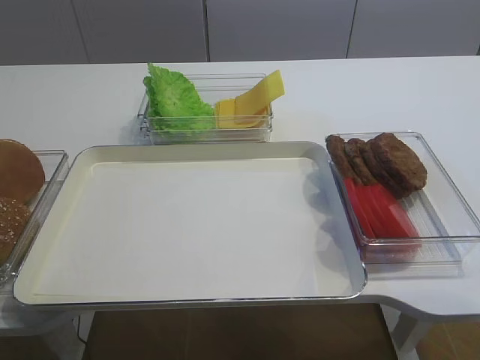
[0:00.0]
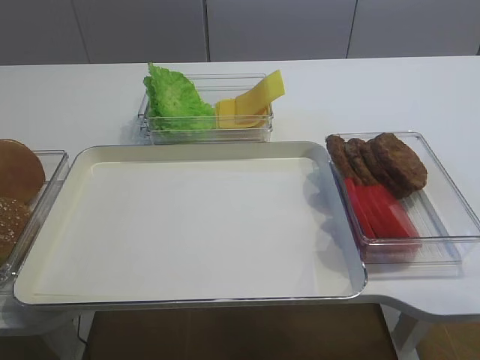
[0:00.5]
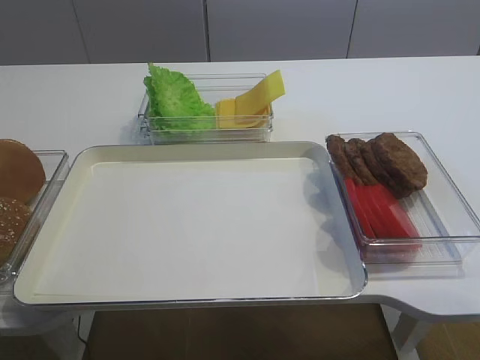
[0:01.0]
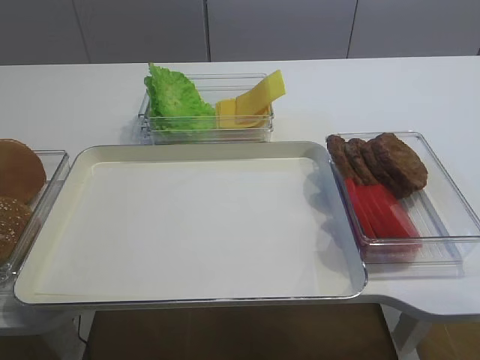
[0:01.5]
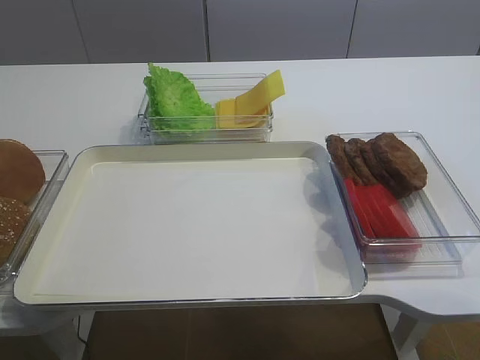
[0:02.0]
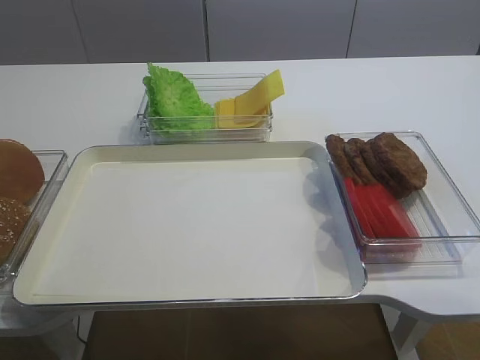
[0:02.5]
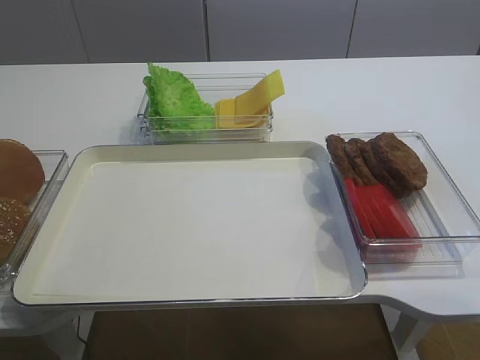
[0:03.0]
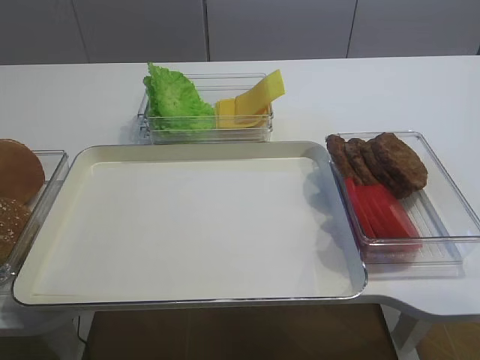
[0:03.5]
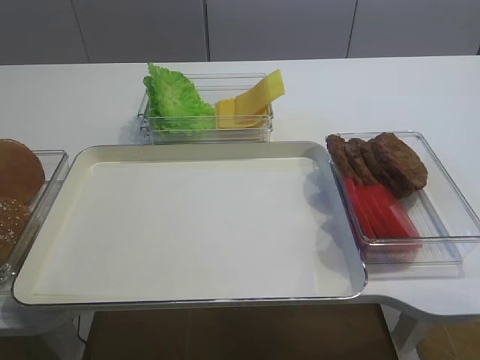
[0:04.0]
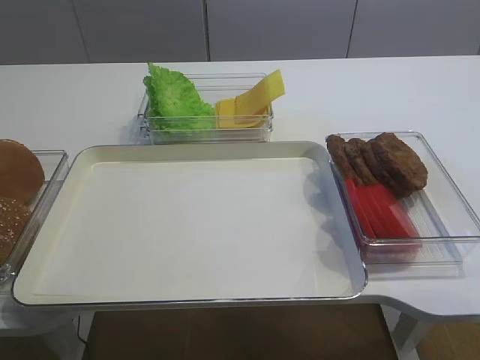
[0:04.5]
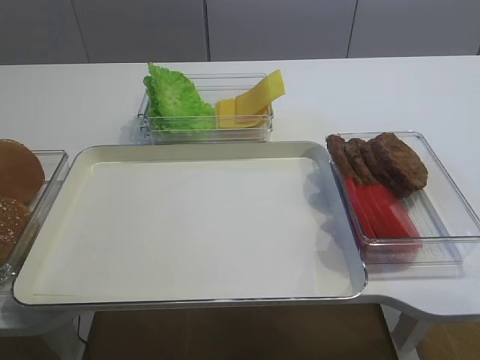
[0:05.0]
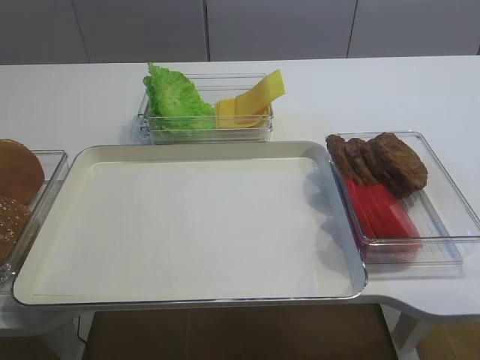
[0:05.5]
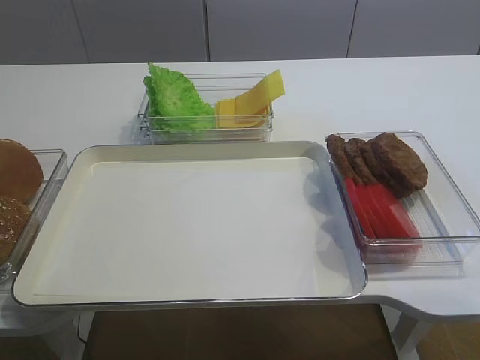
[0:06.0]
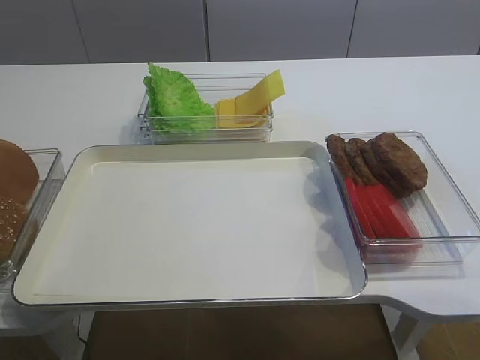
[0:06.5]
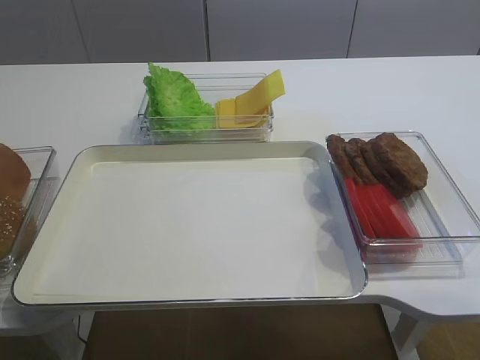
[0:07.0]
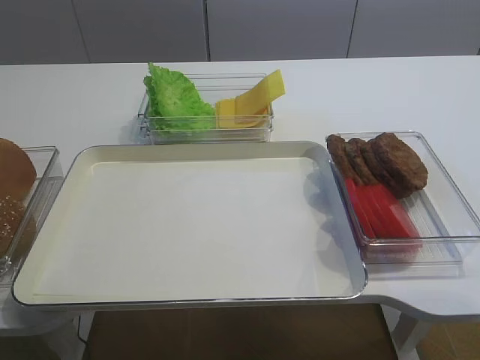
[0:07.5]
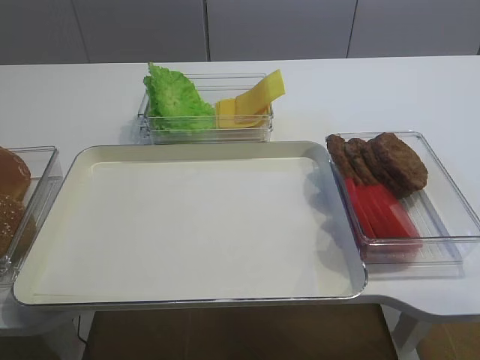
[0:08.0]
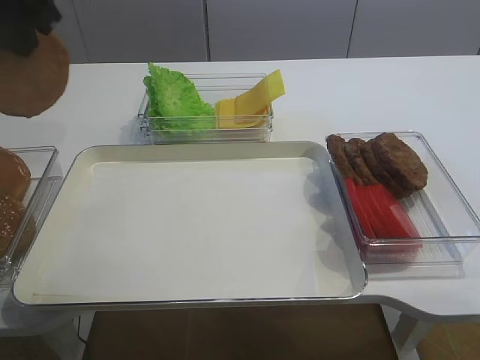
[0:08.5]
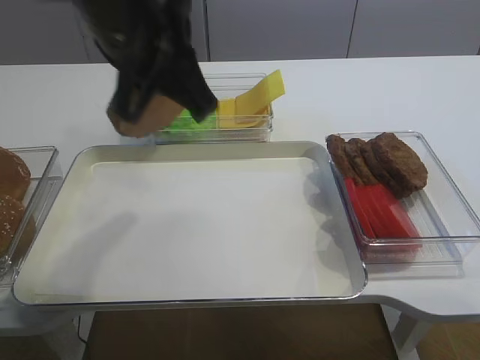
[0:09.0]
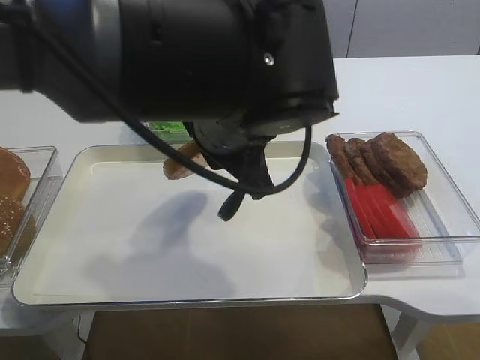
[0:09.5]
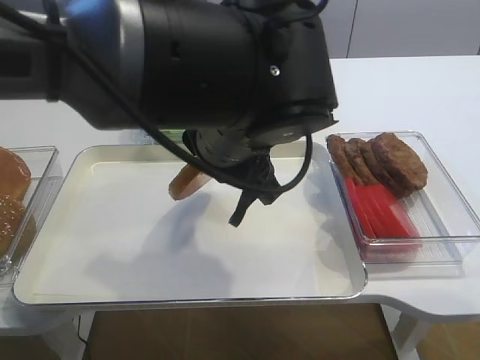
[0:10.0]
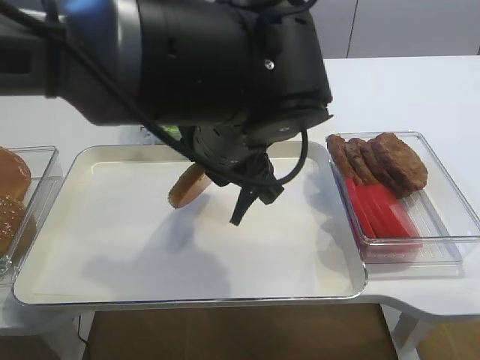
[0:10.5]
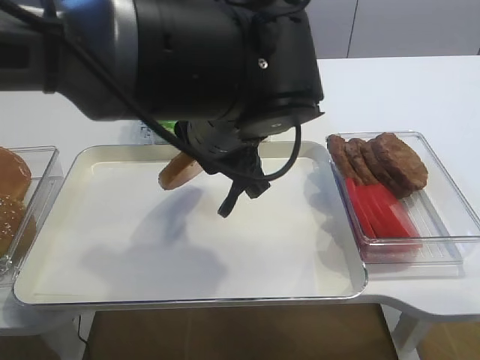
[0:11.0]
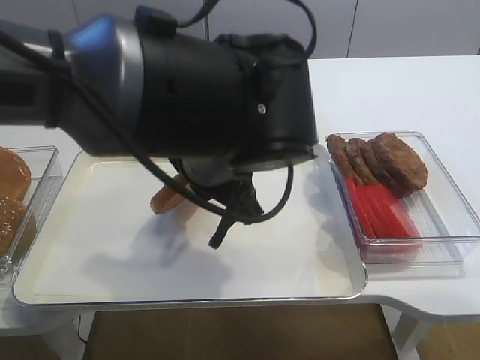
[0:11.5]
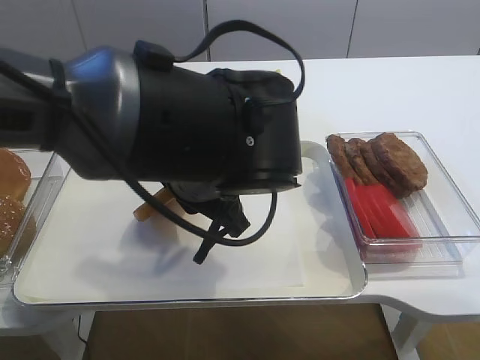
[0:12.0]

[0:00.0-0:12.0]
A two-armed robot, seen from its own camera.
0:06.0 to 0:08.0: The left gripper shifts some 15 cm upward and to the right, and closes.
0:08.0 to 0:10.0: The left gripper heads to the right, covering some 30 cm.

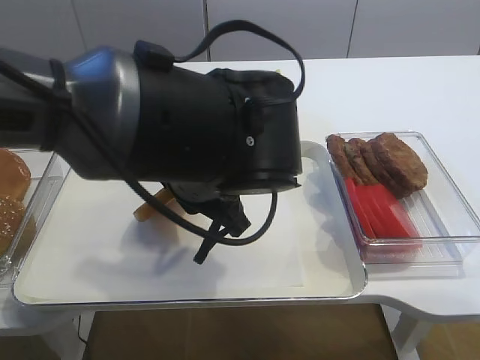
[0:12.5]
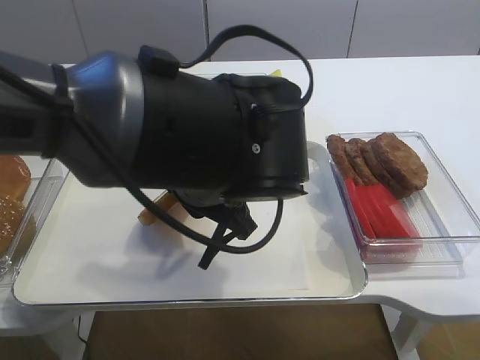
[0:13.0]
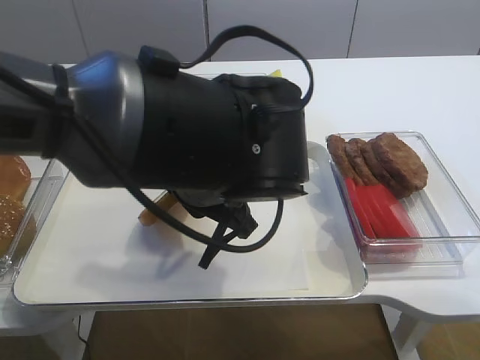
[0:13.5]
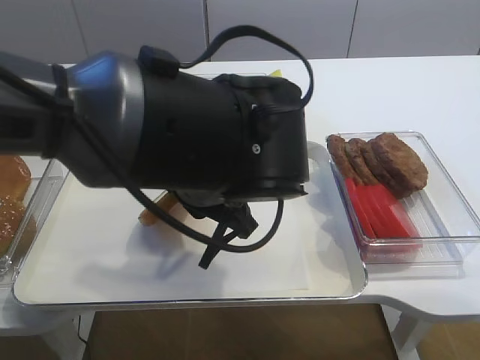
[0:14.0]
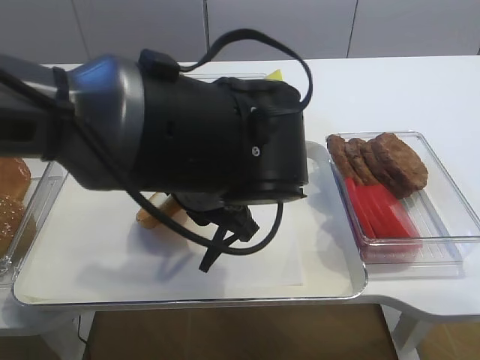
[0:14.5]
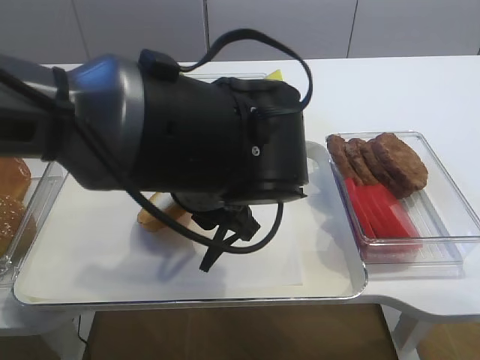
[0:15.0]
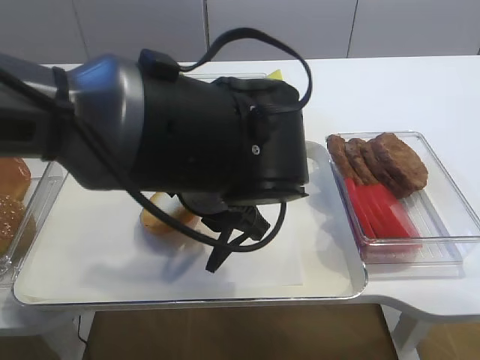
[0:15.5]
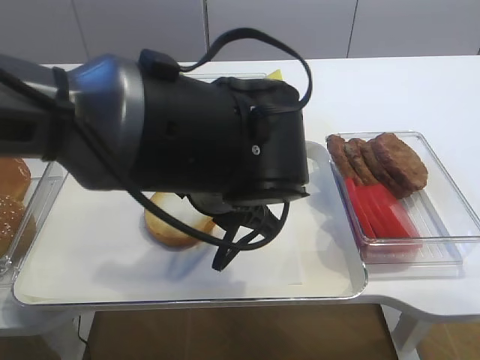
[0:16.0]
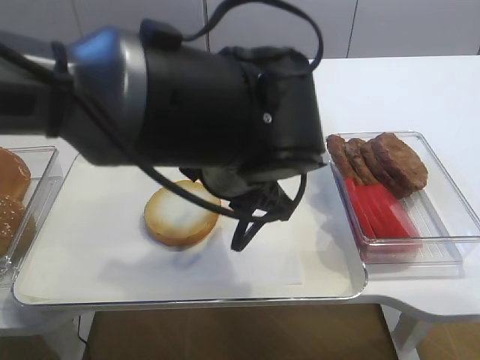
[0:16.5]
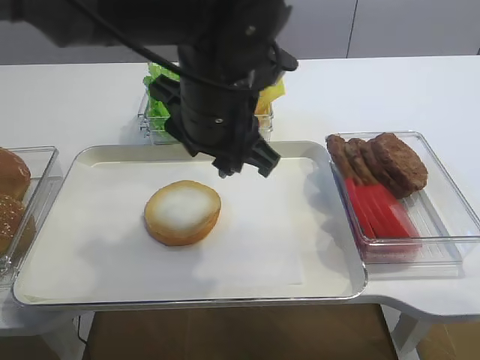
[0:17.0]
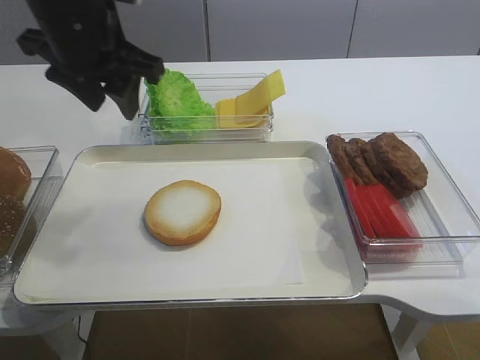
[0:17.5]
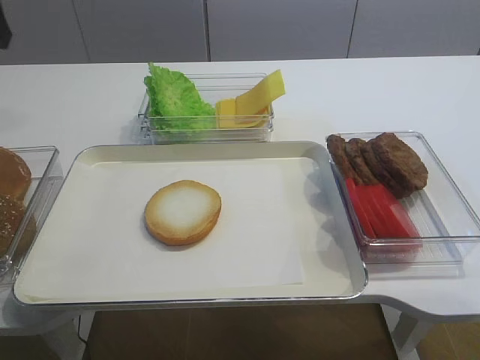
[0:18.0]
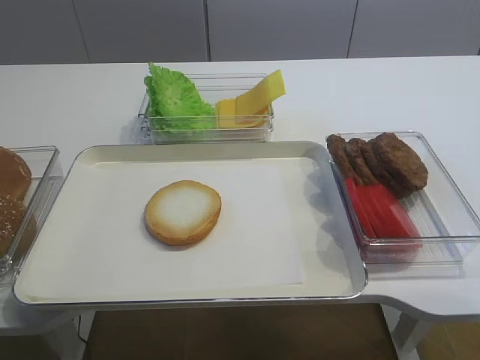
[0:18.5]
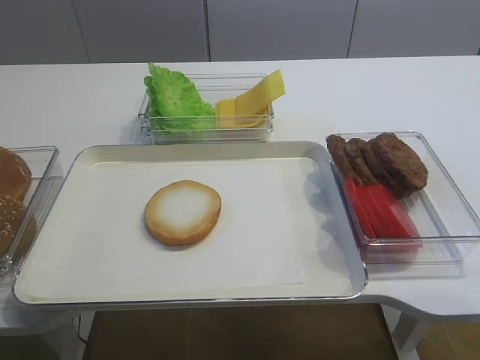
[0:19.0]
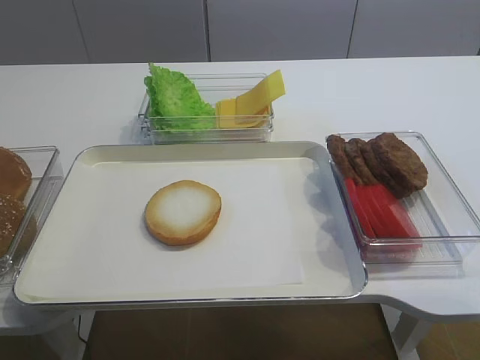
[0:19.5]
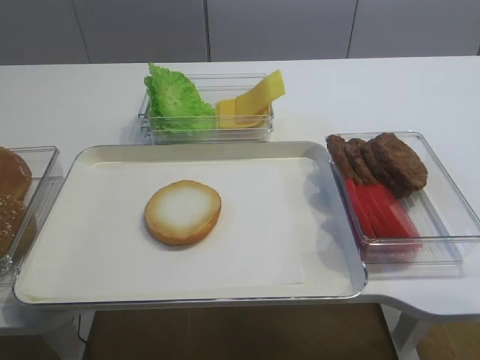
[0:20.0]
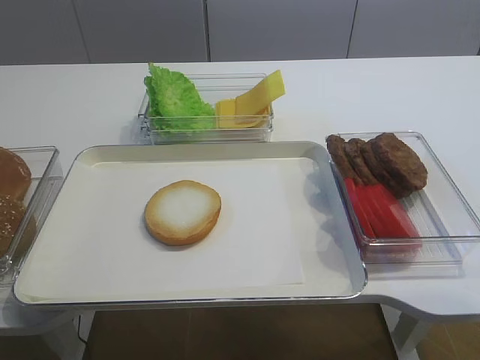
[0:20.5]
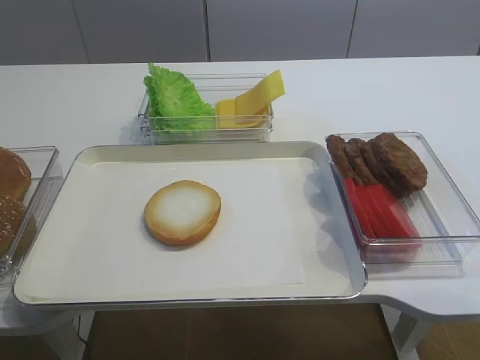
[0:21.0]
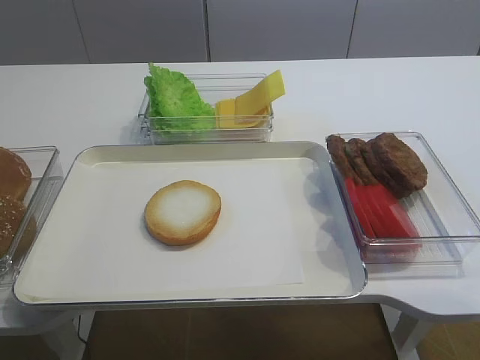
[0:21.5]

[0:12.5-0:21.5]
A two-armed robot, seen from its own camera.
Step, 0:12.5 to 0:16.0: Place the bread slice on the tray with the left gripper.
0:12.5 to 0:14.5: Both grippers stay put.
0:14.5 to 0:17.0: The left gripper moves upward, approximately 5 cm.
0:17.0 to 0:19.5: The left gripper goes some 35 cm to the left and backward.

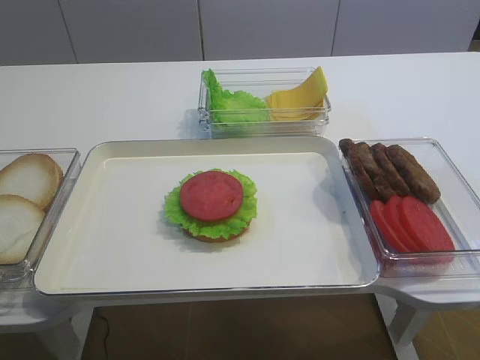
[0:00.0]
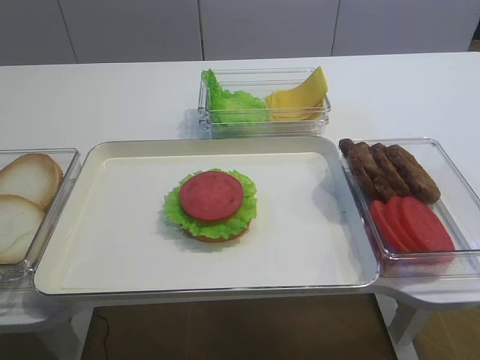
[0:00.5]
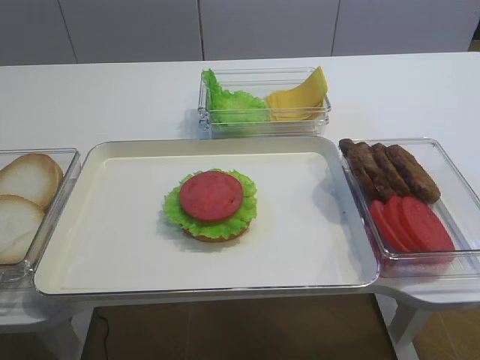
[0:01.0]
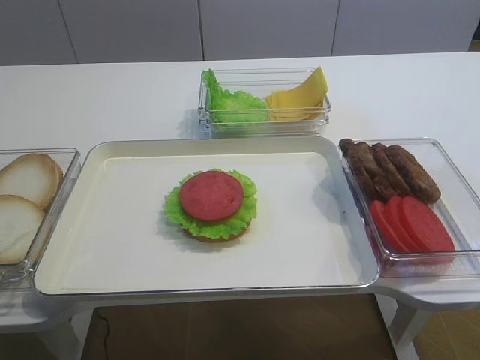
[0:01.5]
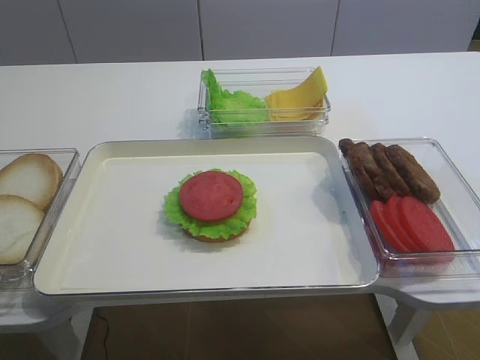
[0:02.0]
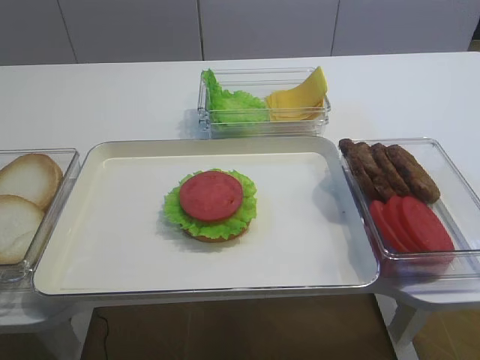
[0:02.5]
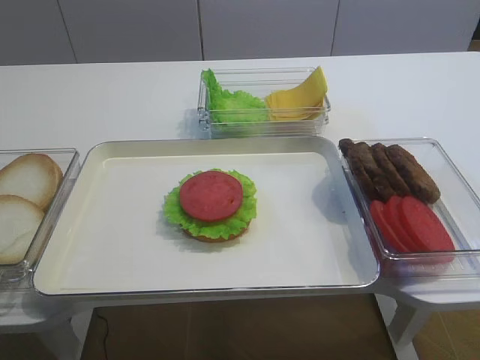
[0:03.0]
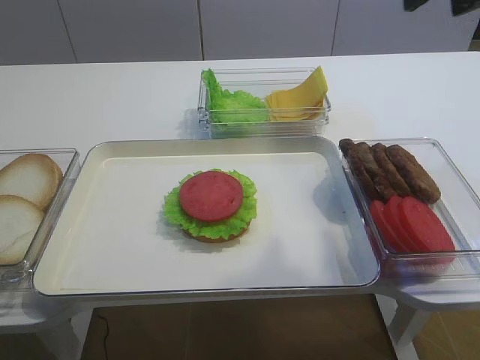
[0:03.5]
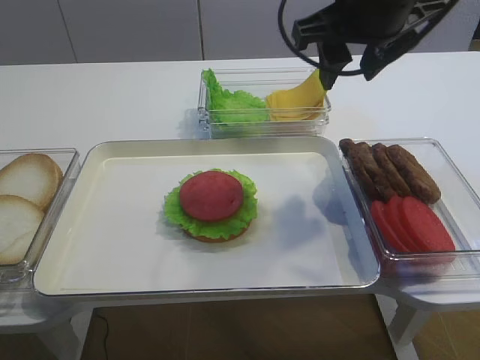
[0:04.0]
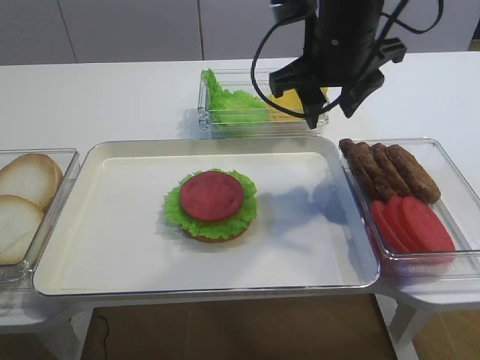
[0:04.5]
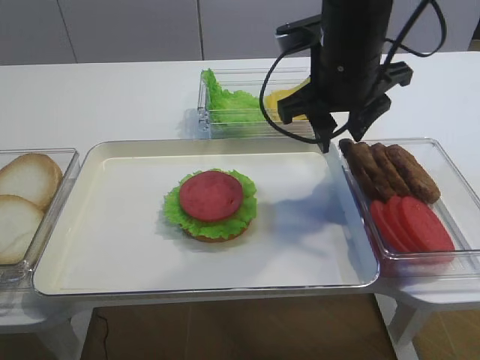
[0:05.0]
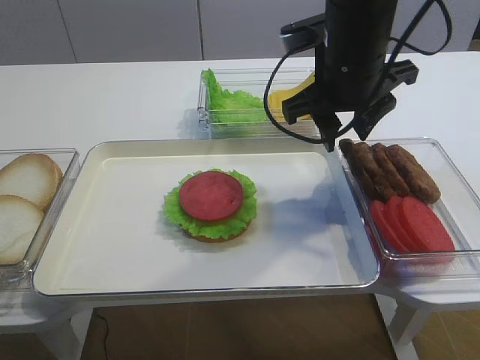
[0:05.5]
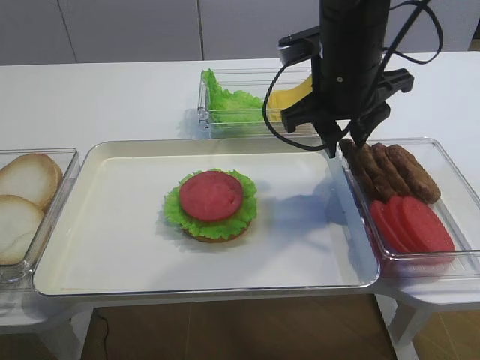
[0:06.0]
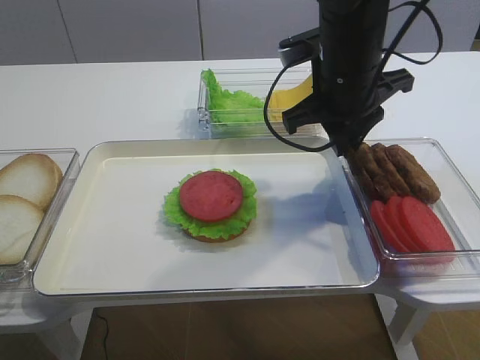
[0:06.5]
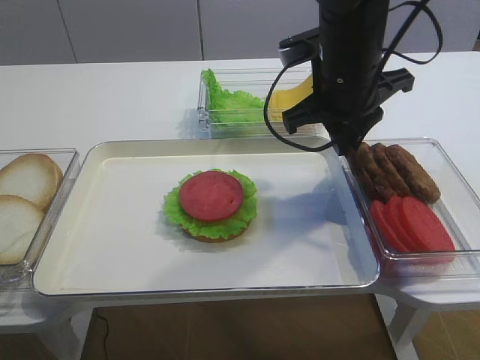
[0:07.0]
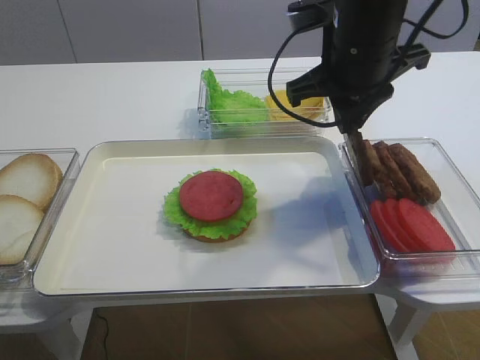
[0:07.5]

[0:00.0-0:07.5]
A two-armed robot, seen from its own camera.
0:02.0 to 0:04.0: The right gripper heads forward and to the left, covering roughly 35 cm.
0:04.0 to 0:05.5: The right gripper moves downward, roughly 5 cm.
0:05.5 to 0:07.5: The right gripper closes its fingers.
